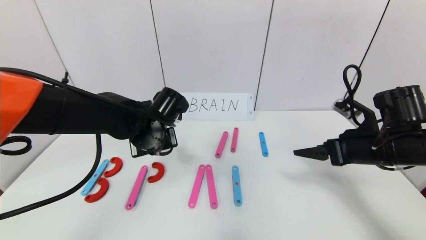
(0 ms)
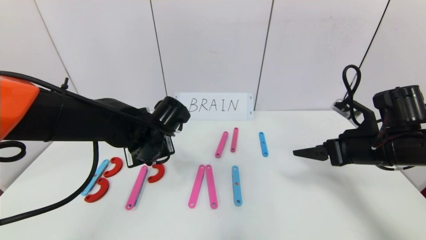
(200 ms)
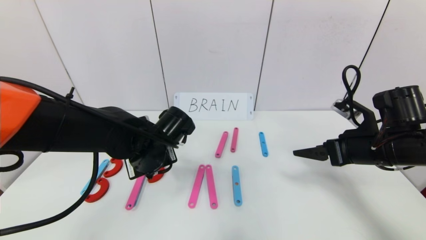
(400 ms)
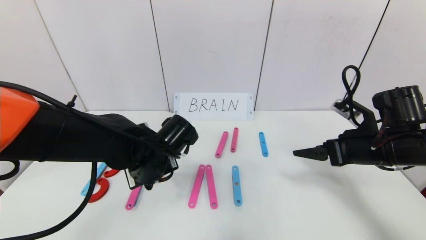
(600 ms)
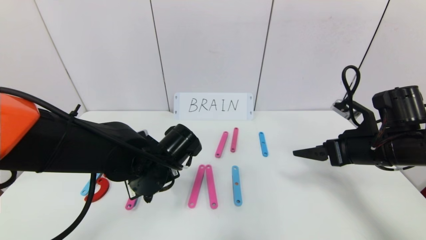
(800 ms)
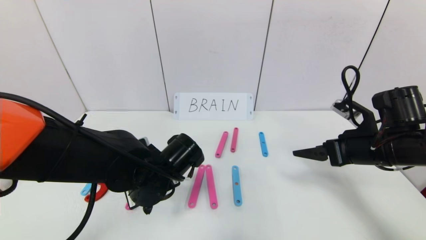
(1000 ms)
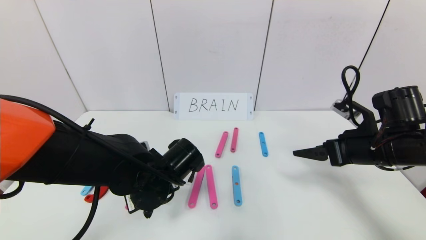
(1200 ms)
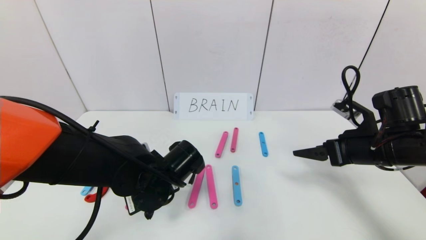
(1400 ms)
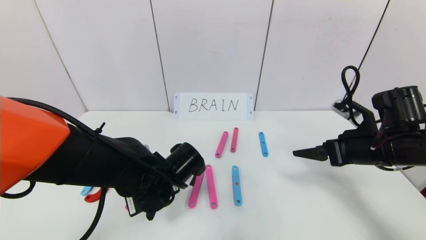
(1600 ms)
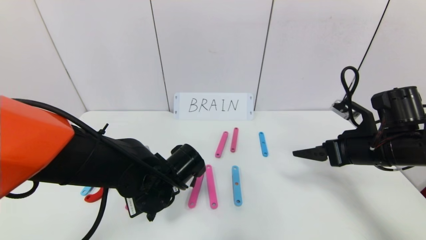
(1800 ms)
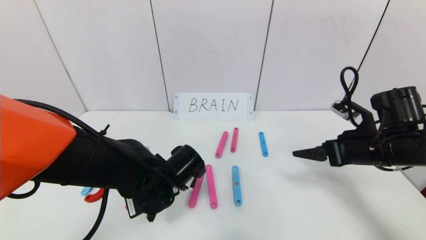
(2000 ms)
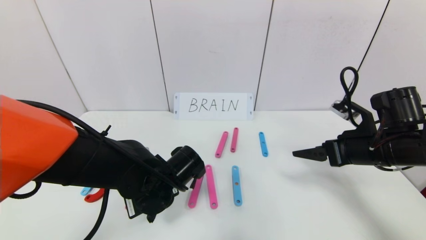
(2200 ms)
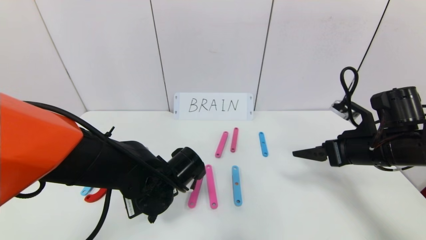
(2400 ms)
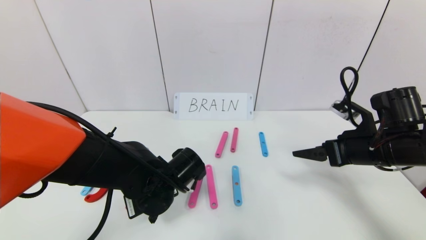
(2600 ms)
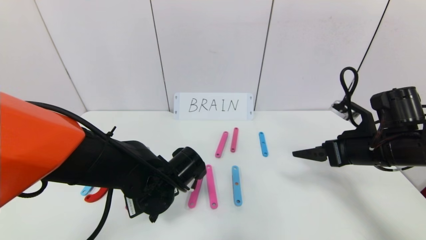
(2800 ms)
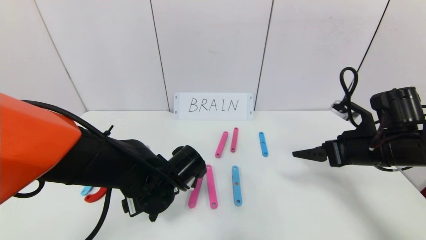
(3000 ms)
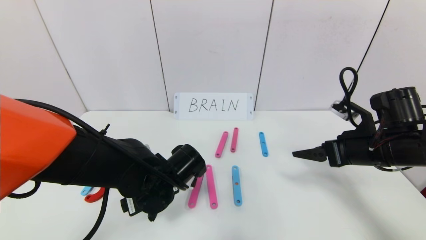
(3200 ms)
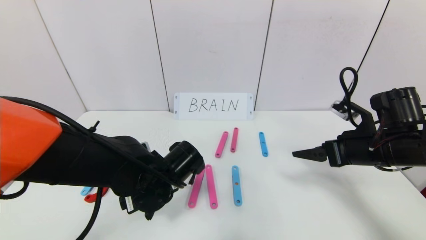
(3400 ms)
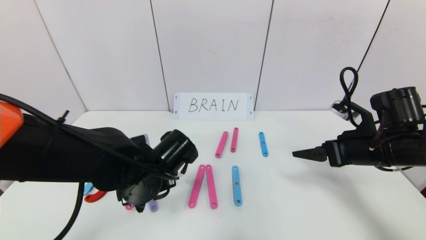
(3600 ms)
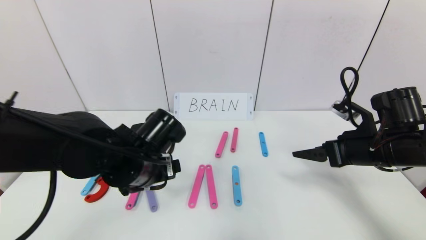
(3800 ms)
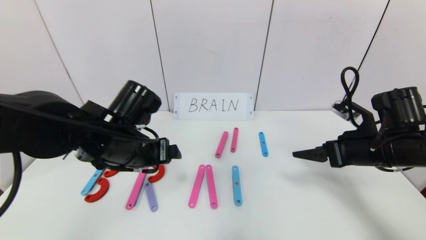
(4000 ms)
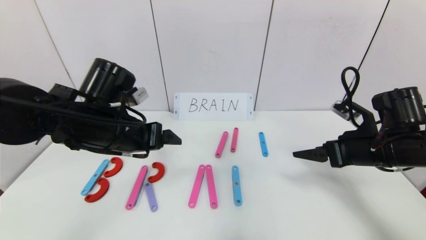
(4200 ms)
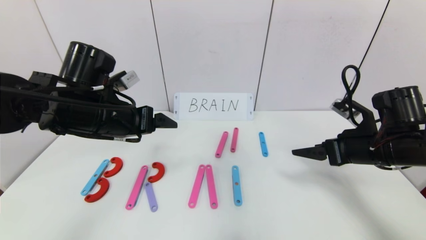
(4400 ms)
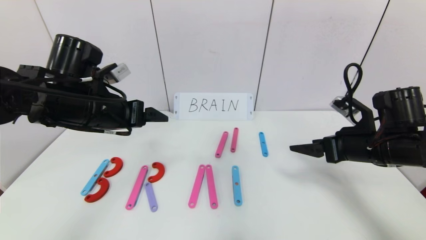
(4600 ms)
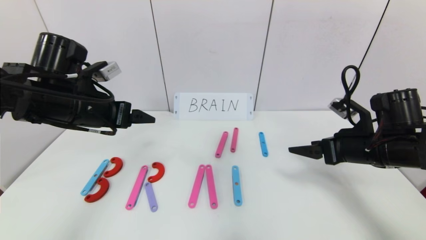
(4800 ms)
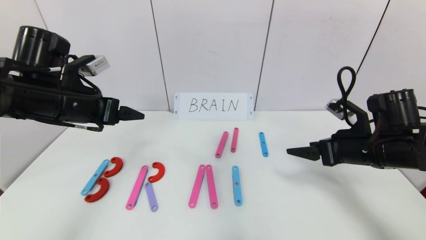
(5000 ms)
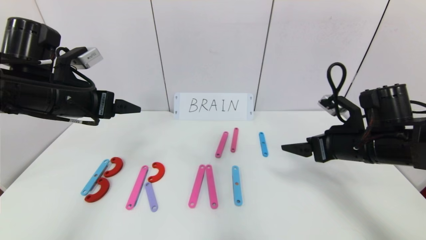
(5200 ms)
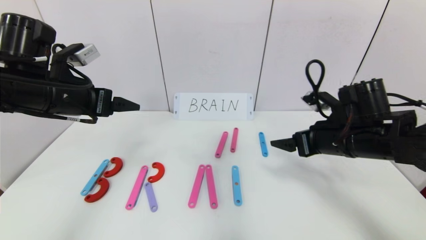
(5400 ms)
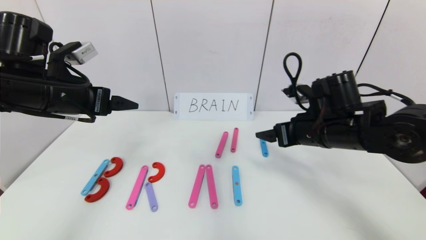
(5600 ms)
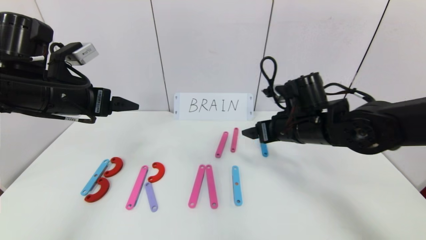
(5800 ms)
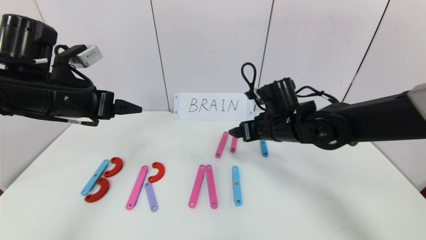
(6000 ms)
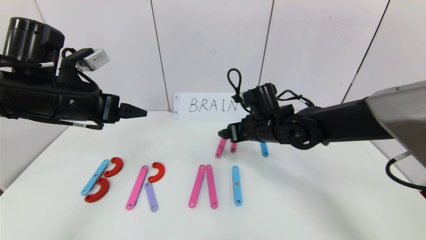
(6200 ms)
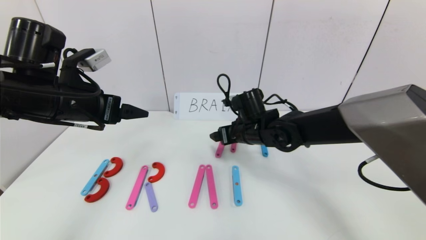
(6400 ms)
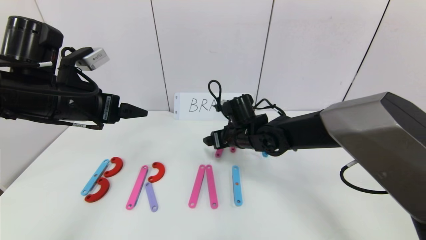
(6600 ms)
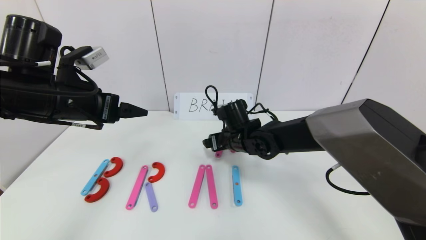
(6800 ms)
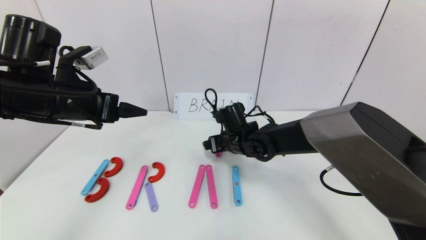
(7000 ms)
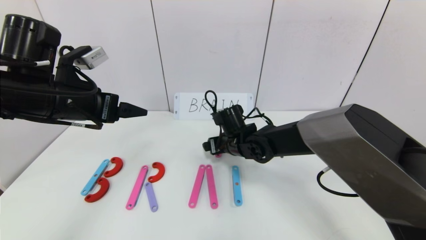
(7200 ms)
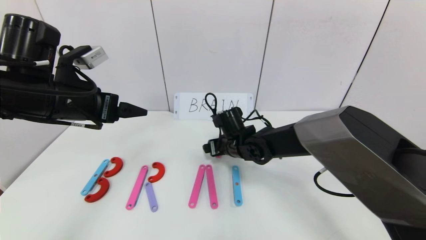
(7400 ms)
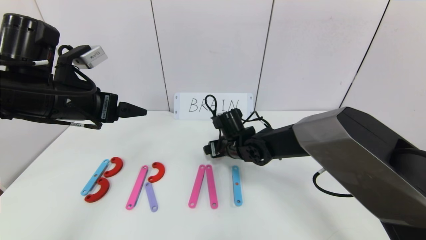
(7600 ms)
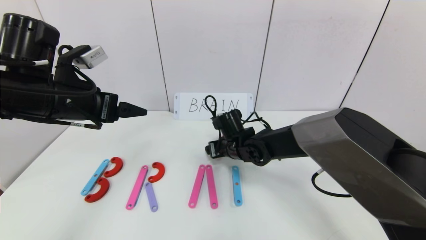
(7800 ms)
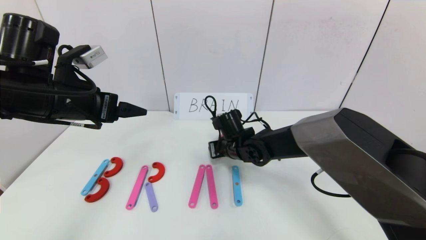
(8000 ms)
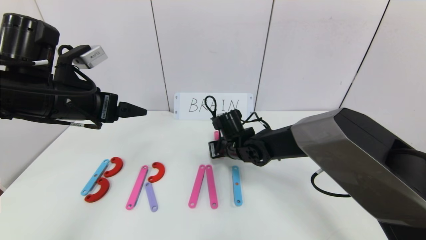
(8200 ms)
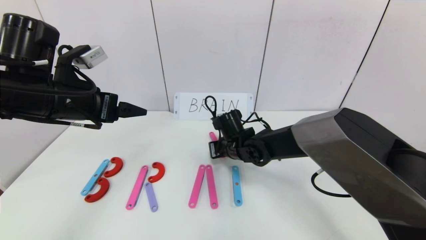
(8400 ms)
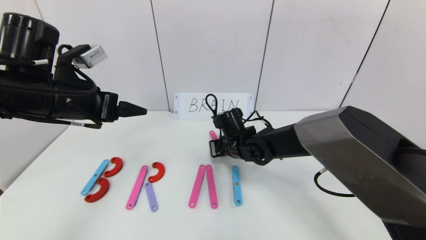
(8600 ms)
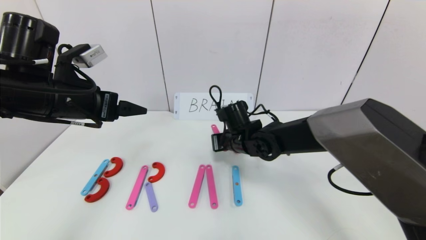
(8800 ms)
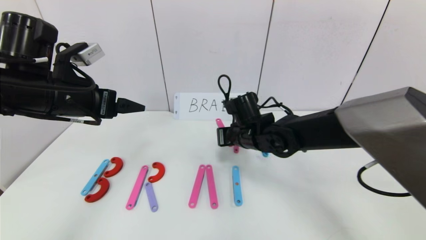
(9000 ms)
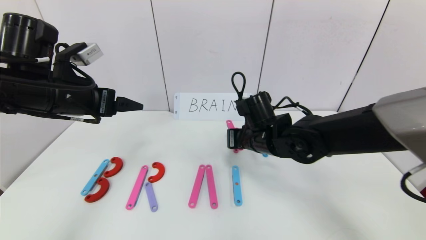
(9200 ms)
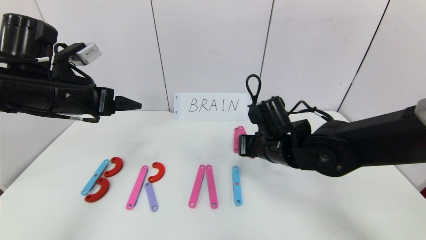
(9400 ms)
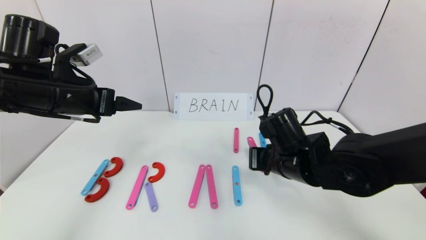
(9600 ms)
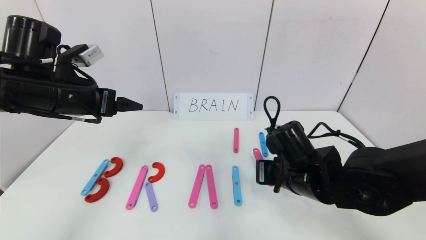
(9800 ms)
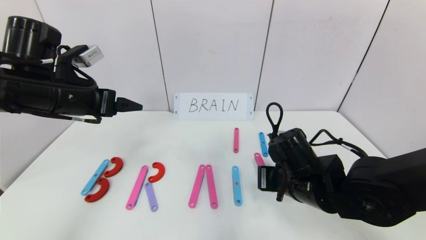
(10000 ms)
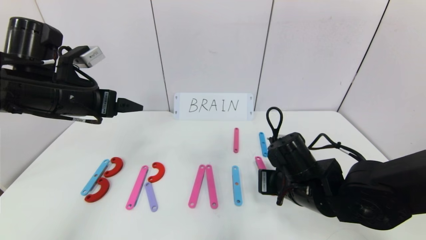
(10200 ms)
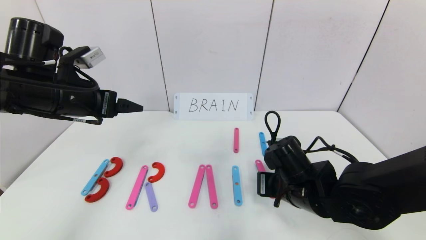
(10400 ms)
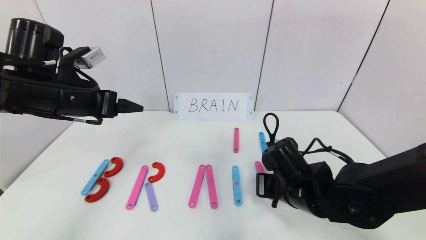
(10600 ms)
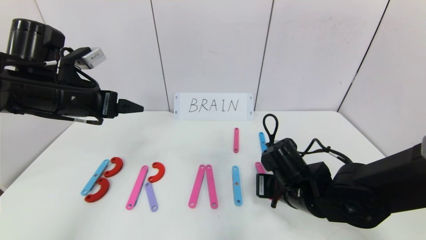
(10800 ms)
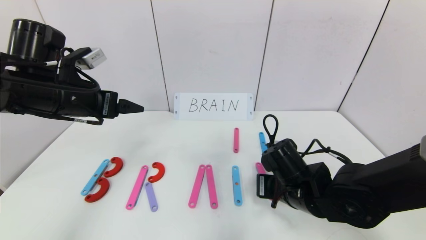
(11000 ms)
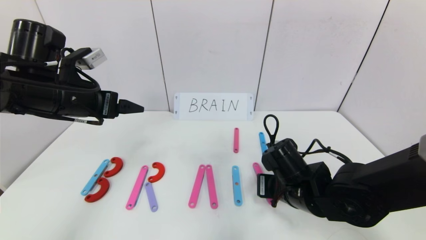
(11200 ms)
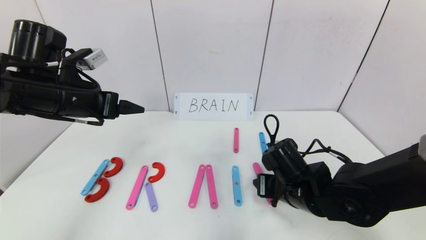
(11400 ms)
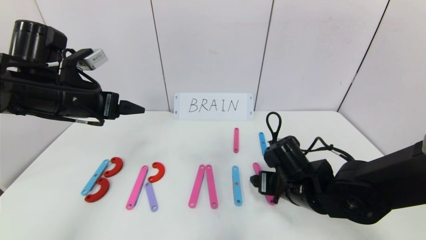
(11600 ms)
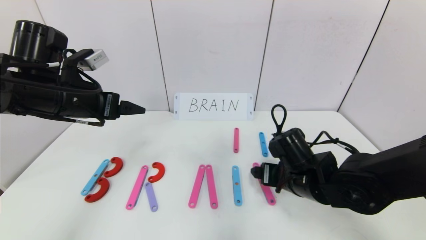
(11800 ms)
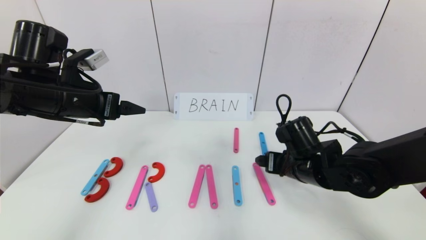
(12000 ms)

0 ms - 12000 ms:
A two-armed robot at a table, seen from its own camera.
Task of the whole recording: rearrange the word baai as brain.
Step, 0 ms - 2800 ms: Place the character R between first character B and third character A.
0 ms - 1600 ms: The left gripper is displaced backward and downward by about 10 cm.
1600 ms - 3000 ms: The left gripper opens up.
3000 ms - 4400 ms: The left gripper travels upward and to the left by about 20 cm.
4400 ms - 6000 ms: The left gripper moves to the left, roughly 5 cm; the right gripper travels to the left and forward by approximately 20 cm.
6000 ms - 7600 ms: The right gripper heads downward and to the left, covering roughly 10 cm.
7600 ms - 9000 ms: The right gripper travels upward by roughly 5 cm, and closes up.
9000 ms - 10400 ms: The right gripper moves backward and to the right, approximately 15 cm.
10400 ms - 12000 ms: The right gripper moves roughly 5 cm, and opens.

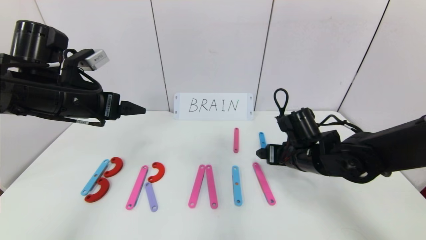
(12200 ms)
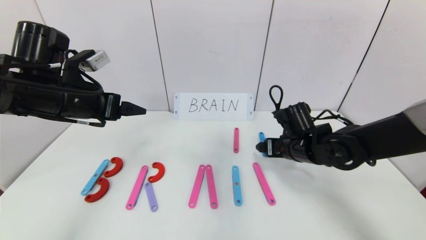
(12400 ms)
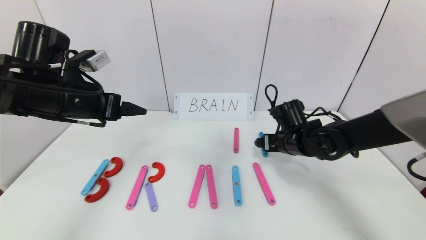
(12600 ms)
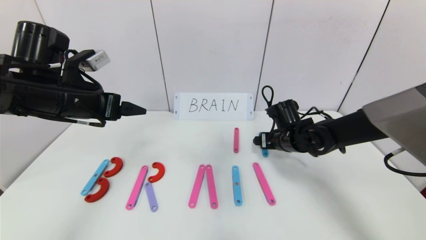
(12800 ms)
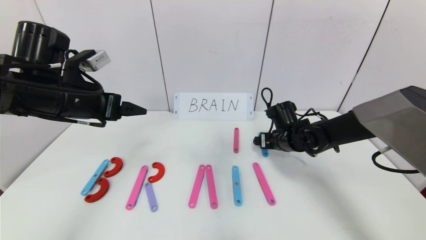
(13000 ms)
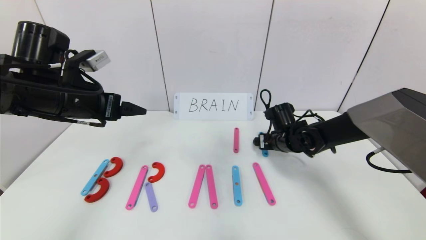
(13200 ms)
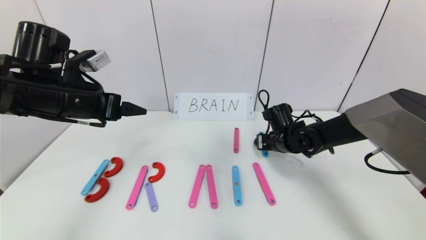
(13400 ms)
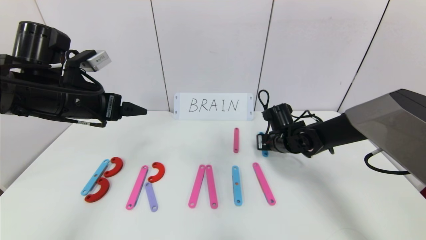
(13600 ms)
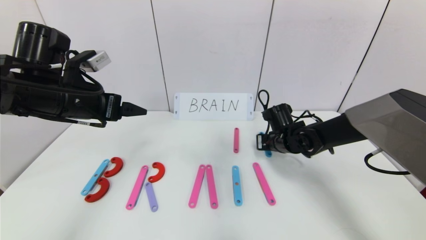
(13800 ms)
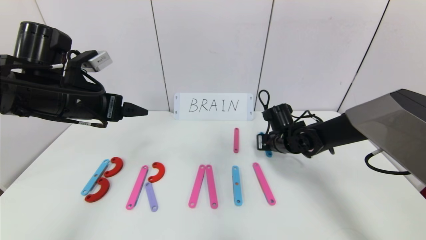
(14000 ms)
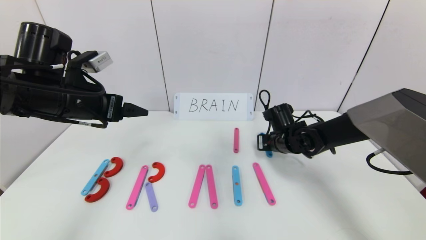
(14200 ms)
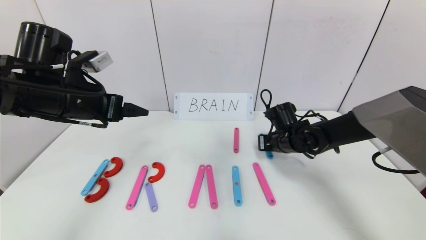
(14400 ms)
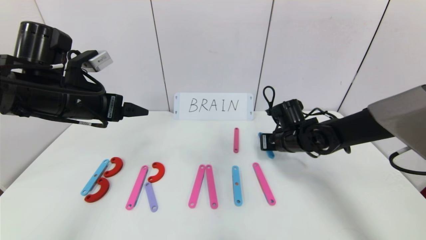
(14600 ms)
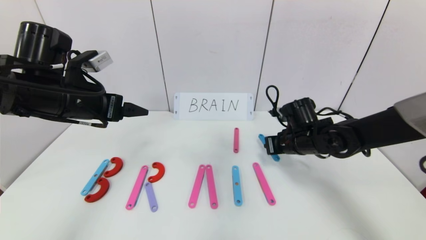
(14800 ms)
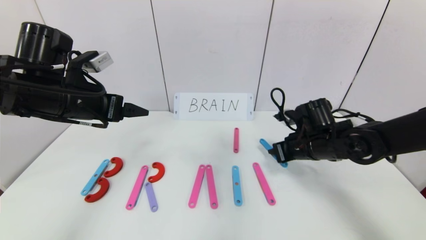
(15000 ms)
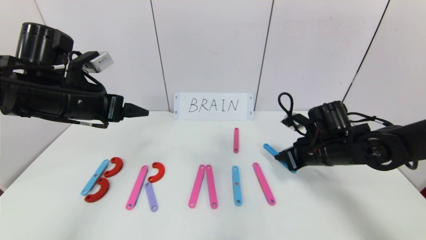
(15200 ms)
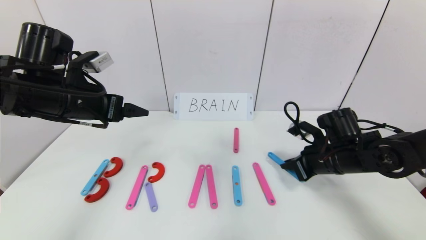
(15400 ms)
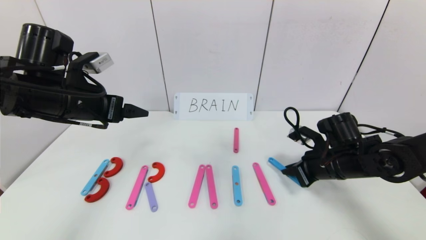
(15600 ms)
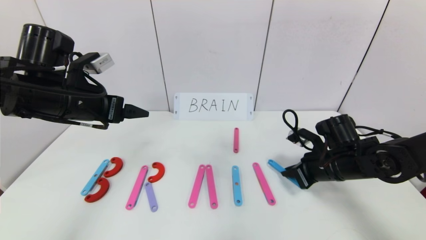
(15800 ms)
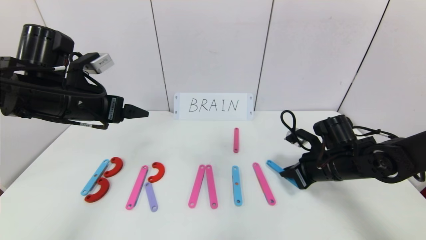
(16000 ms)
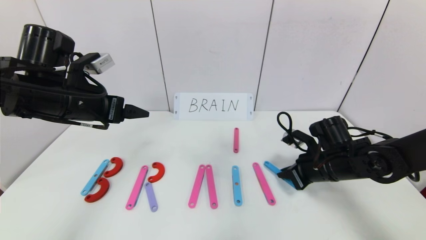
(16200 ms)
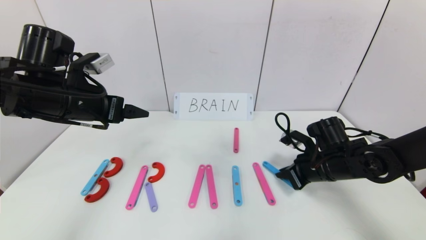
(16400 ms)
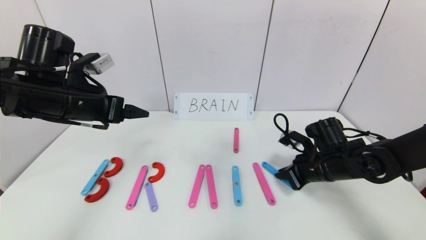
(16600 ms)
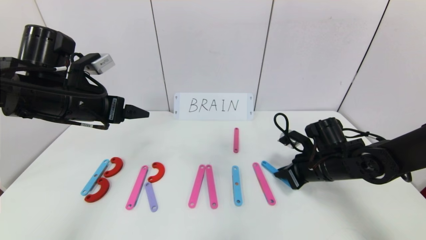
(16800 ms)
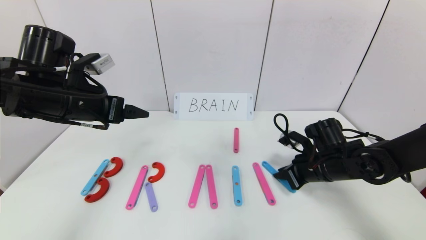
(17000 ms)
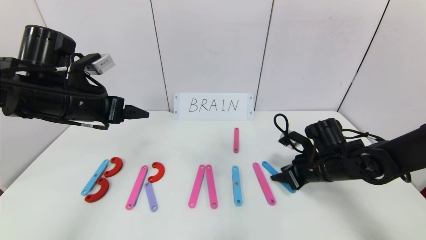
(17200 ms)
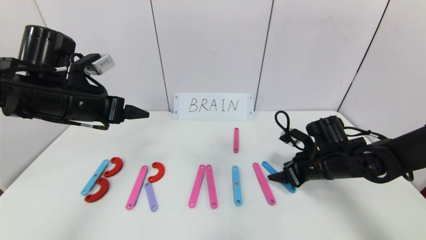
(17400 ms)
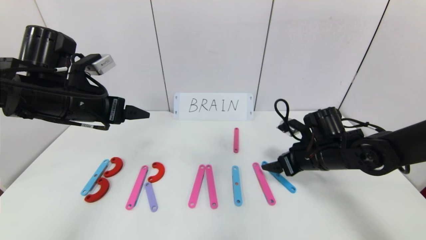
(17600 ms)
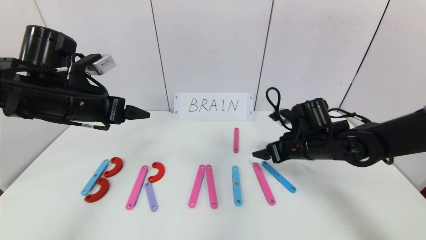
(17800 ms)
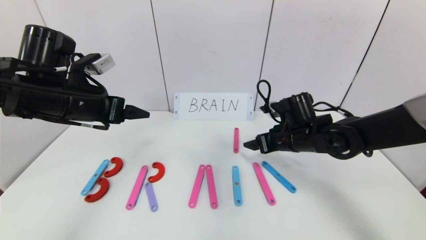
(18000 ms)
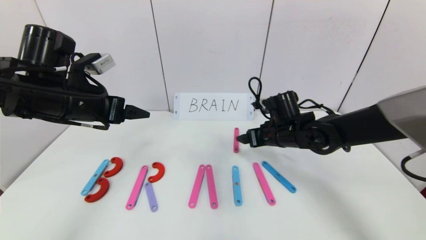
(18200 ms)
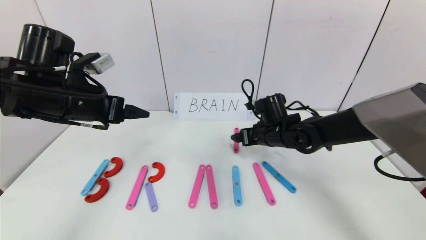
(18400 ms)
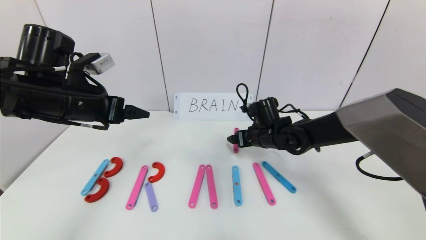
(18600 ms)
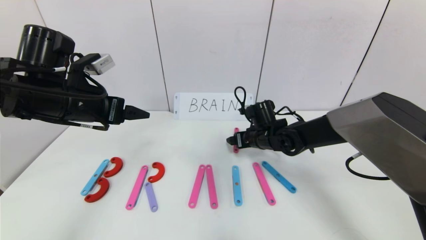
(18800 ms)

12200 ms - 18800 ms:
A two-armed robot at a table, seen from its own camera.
Task of the whole recording: rearrange the word baai as brain.
12200 ms - 13800 ms: The right gripper travels forward by roughly 10 cm, and closes up.
13800 ms - 15400 ms: The right gripper heads backward and to the right, covering about 10 cm.
15400 ms - 17200 ms: The right gripper opens its fingers.
17200 ms - 18800 ms: The right gripper goes roughly 15 cm to the left and forward, and opens its fingers.
